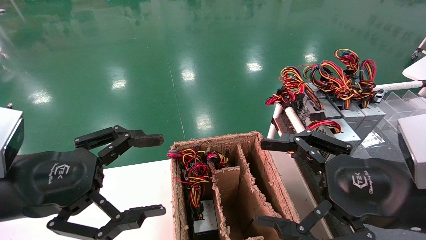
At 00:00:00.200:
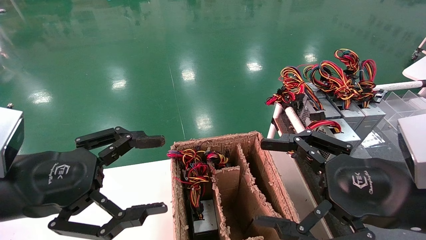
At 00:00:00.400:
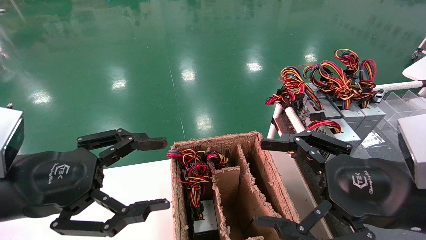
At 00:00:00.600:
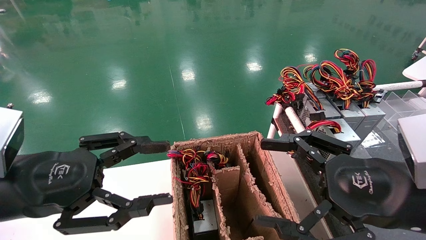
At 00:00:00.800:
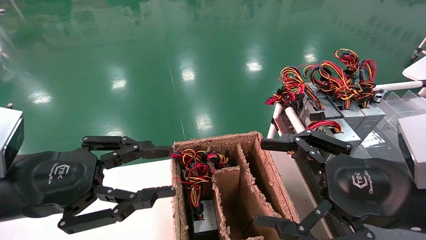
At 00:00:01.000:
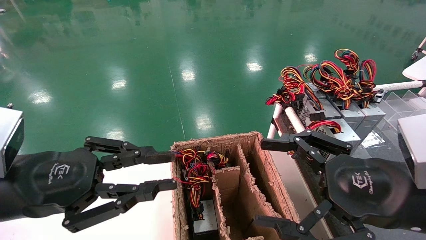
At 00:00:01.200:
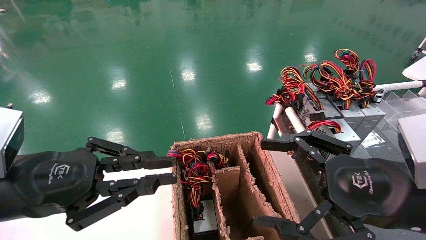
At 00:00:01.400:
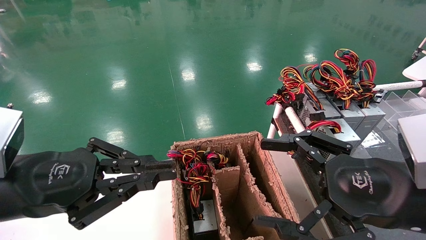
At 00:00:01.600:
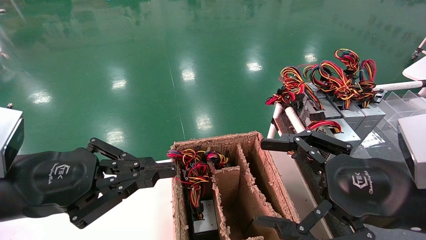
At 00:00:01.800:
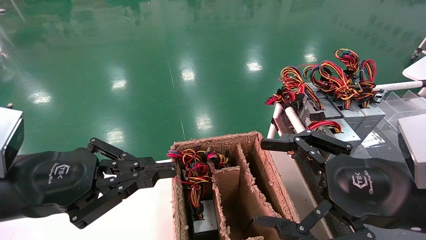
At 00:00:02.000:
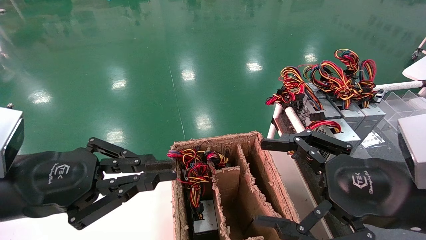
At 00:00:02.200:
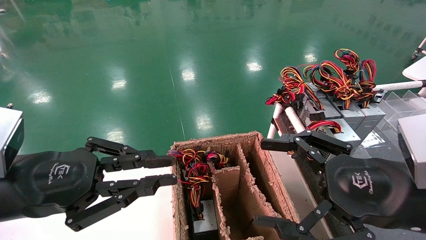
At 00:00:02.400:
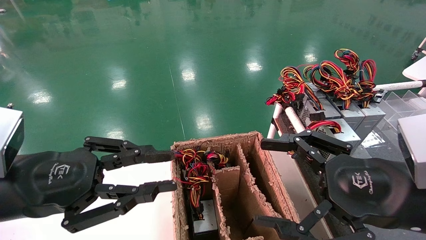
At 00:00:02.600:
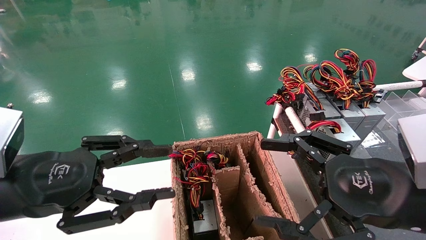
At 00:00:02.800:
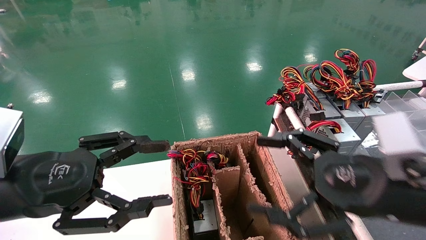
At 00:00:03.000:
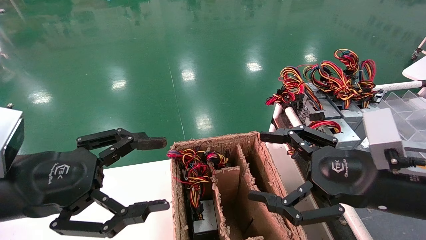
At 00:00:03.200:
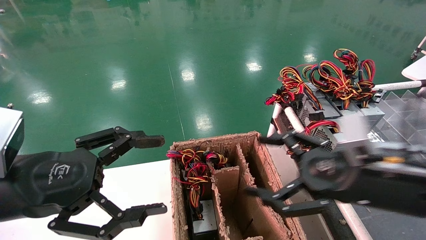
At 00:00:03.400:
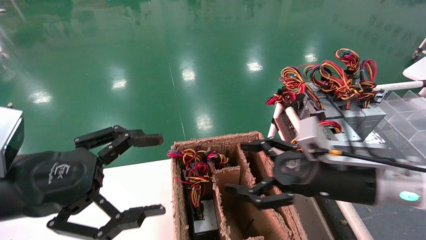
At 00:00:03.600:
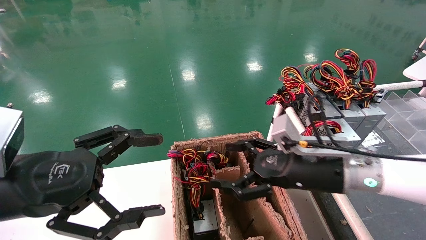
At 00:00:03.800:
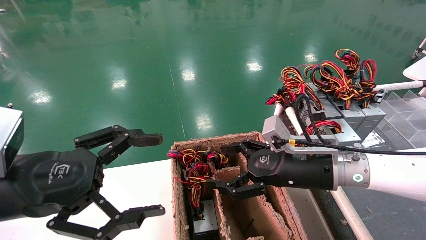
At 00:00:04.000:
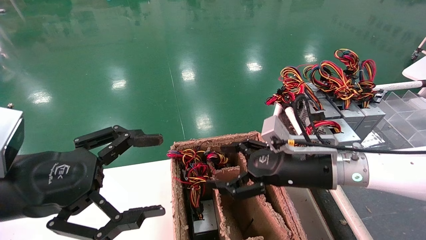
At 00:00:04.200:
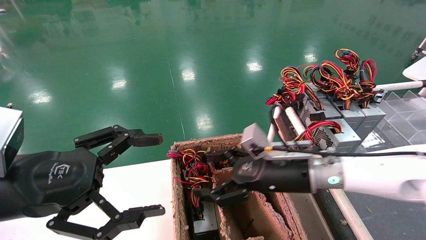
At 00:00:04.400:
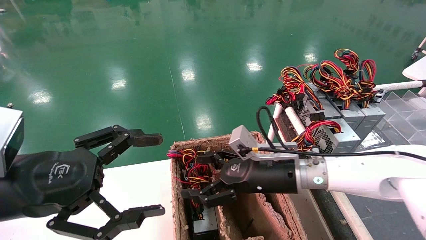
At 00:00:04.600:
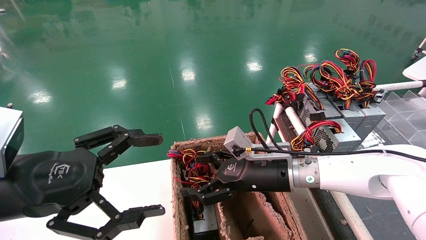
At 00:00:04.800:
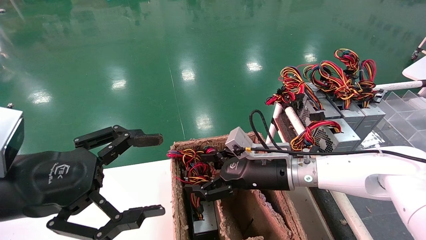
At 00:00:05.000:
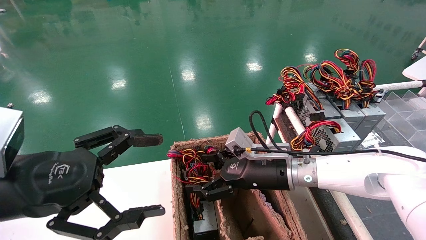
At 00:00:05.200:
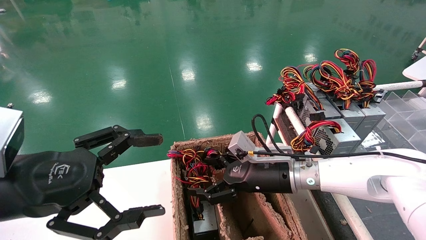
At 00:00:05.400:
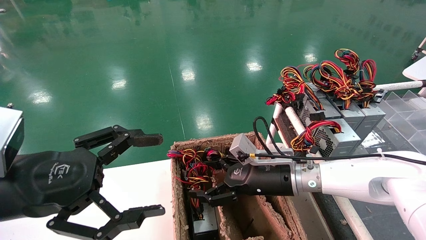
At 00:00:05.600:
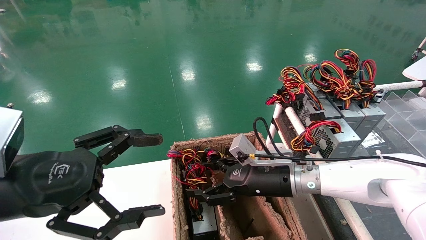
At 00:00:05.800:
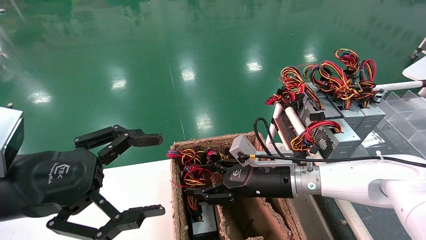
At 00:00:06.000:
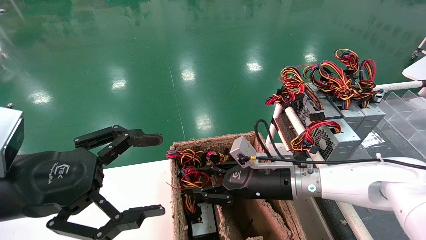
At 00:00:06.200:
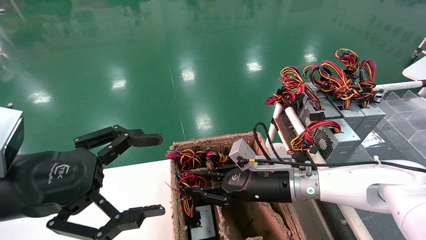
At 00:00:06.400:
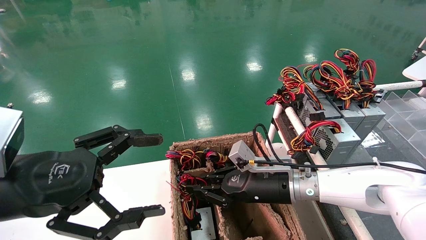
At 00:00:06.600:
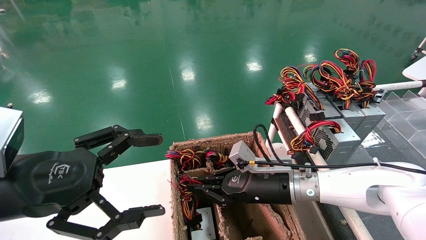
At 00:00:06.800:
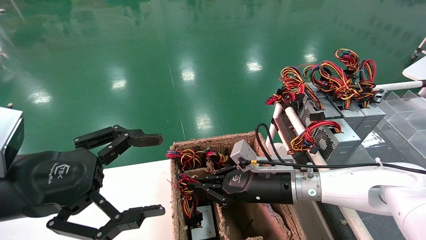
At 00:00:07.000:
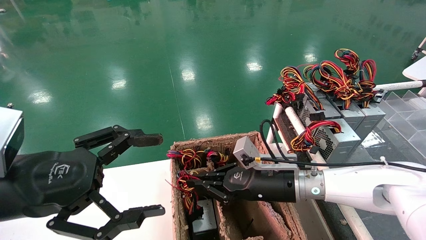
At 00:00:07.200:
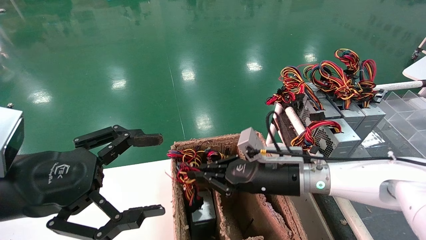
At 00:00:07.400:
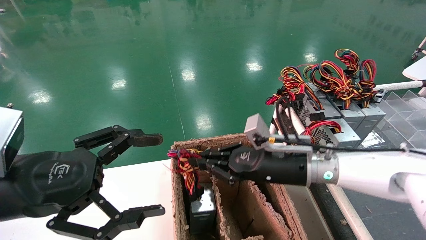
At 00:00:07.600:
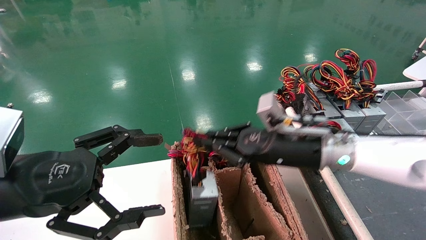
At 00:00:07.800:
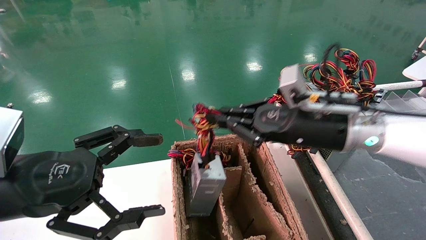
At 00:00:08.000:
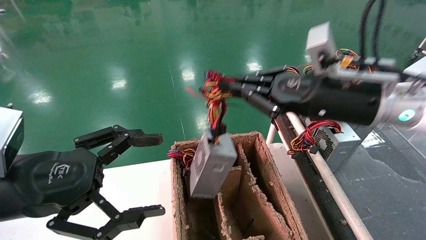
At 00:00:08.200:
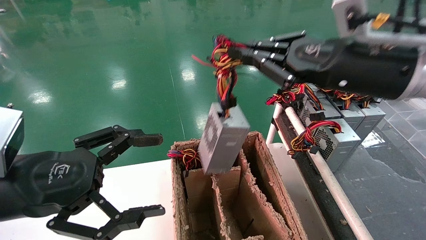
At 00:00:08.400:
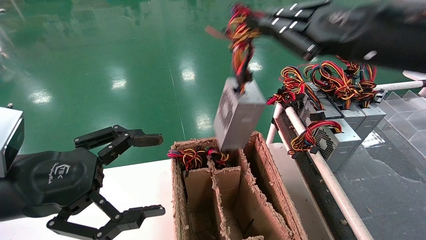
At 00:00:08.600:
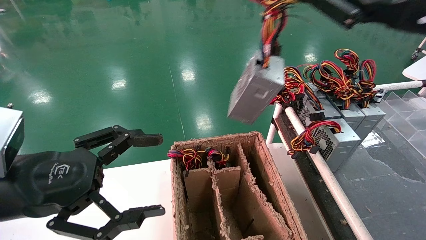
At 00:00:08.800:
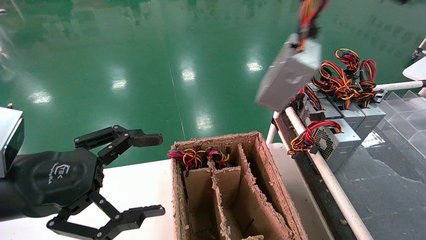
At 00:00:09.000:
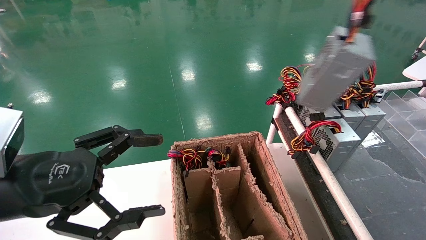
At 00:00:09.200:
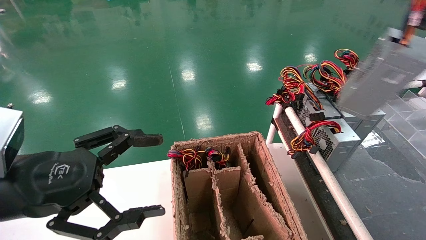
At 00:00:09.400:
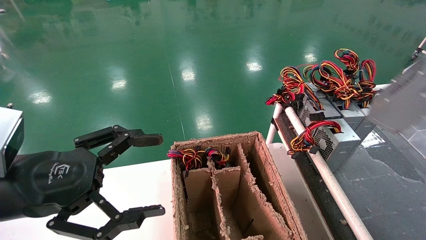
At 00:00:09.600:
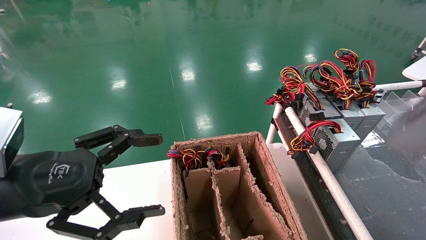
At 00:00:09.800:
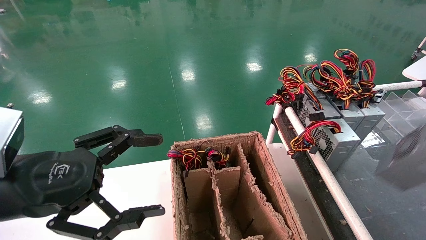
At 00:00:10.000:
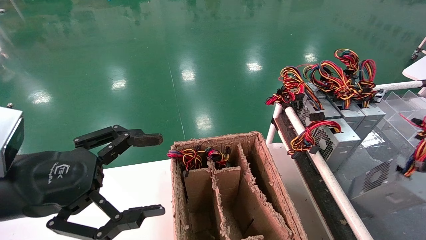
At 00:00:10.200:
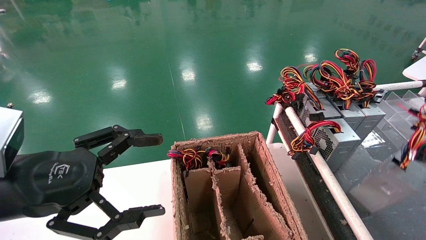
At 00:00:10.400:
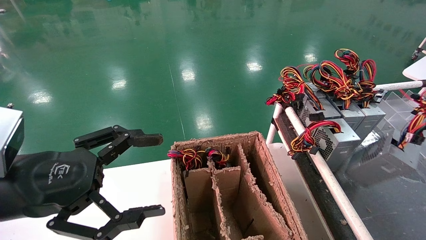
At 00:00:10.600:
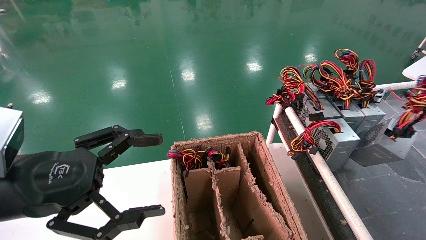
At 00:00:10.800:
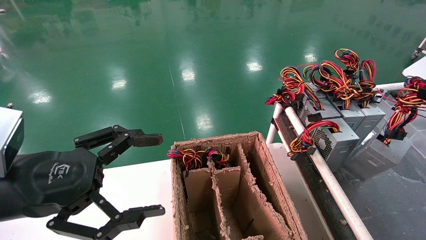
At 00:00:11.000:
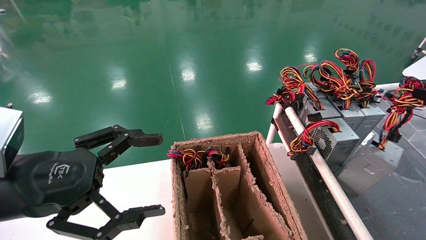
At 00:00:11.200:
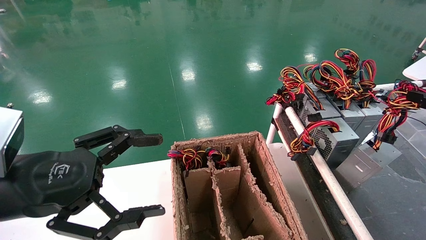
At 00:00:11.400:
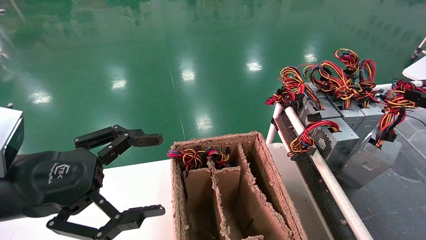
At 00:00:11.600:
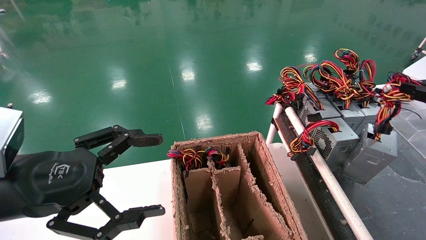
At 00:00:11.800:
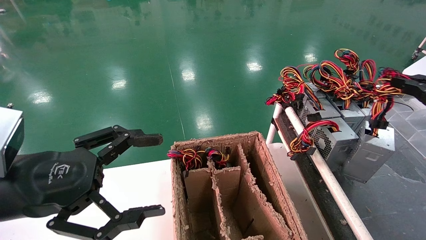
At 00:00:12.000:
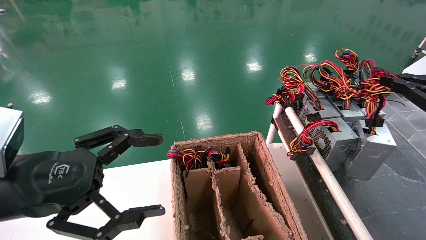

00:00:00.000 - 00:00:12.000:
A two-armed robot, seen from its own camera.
Step, 00:00:01.600 - 00:00:06.400: Grab and lift the power supply from the large box.
00:00:00.000 - 00:00:01.600: The left gripper closes up.
00:00:01.600 - 00:00:03.000: The left gripper opens up.
00:00:03.000 - 00:00:04.400: The right gripper shifts approximately 20 cm forward, to the left and downward.
00:00:04.400 - 00:00:06.000: The right gripper closes its fingers.
00:00:06.000 - 00:00:07.600: The right gripper goes about 10 cm upward, and closes up.
00:00:07.600 - 00:00:09.000: The right gripper shifts some 35 cm upward, to the right and backward.
00:00:09.000 - 00:00:10.400: The right gripper is displaced downward and to the right by approximately 20 cm.
00:00:10.400 - 00:00:12.000: The right gripper is displaced forward by some 10 cm.

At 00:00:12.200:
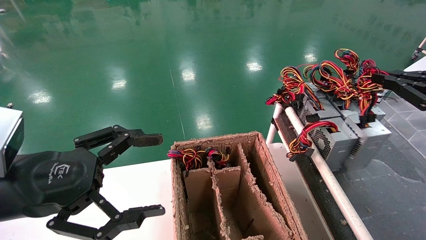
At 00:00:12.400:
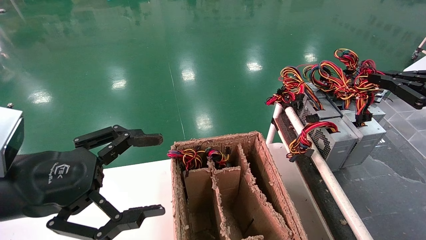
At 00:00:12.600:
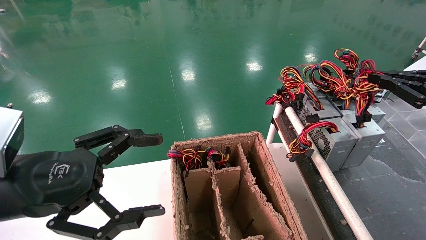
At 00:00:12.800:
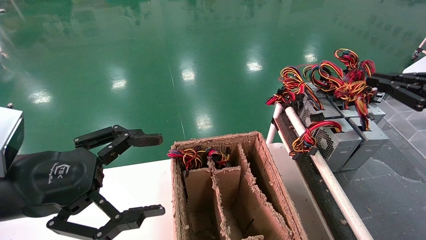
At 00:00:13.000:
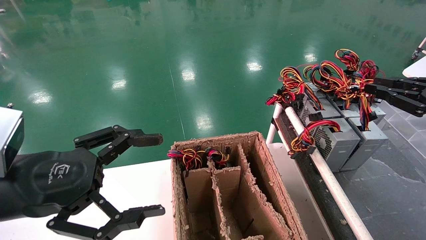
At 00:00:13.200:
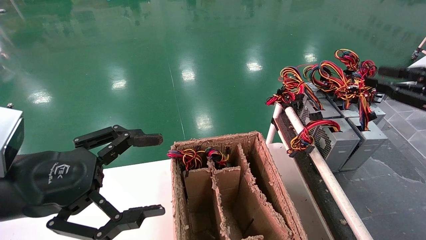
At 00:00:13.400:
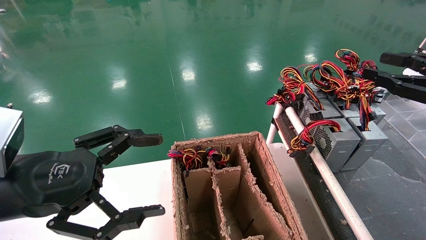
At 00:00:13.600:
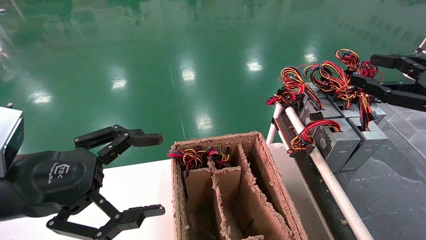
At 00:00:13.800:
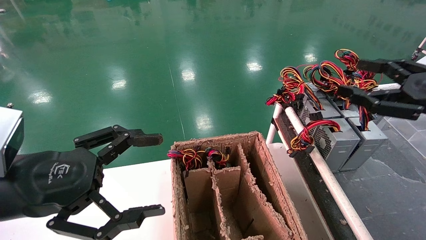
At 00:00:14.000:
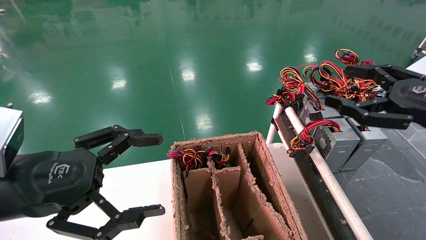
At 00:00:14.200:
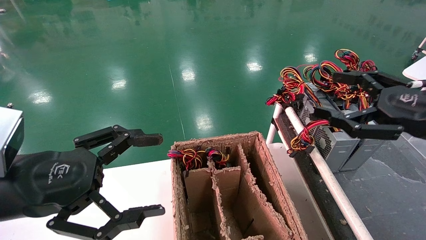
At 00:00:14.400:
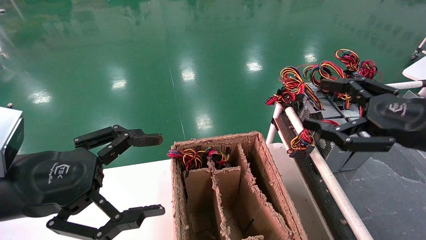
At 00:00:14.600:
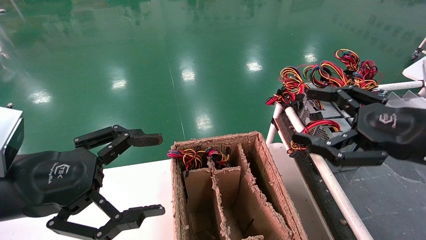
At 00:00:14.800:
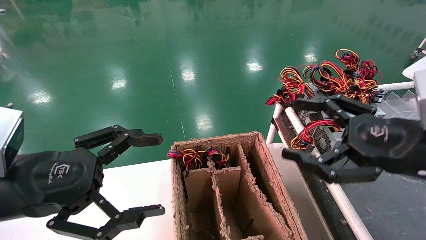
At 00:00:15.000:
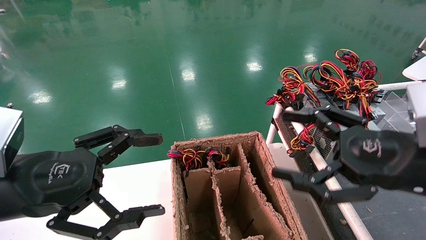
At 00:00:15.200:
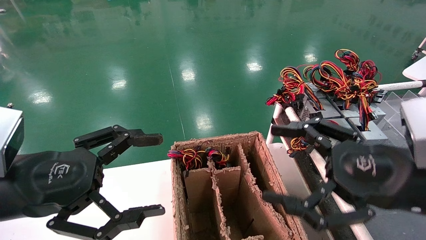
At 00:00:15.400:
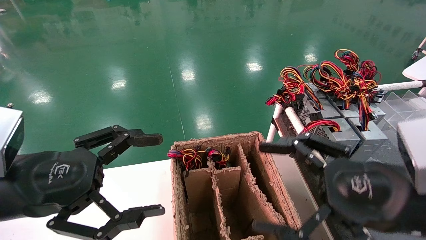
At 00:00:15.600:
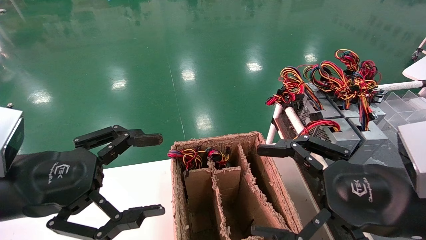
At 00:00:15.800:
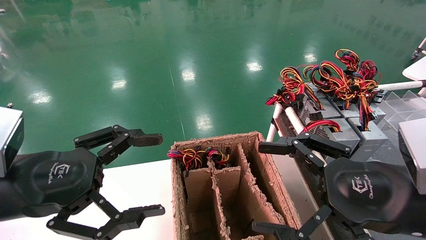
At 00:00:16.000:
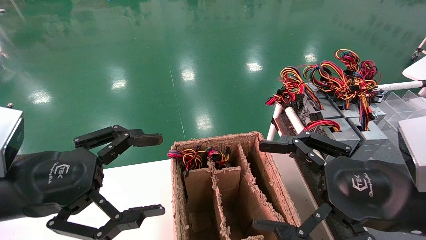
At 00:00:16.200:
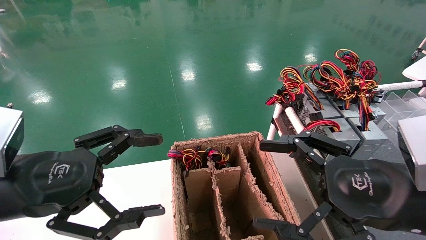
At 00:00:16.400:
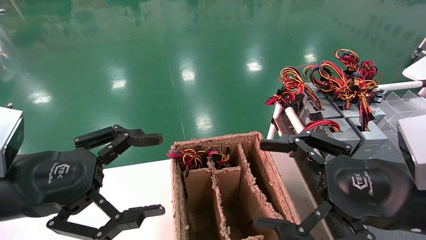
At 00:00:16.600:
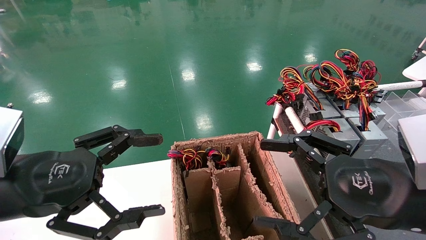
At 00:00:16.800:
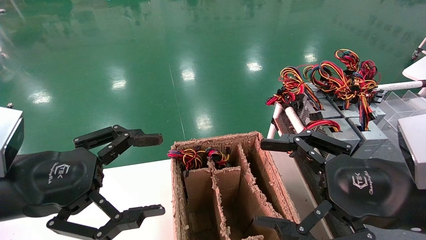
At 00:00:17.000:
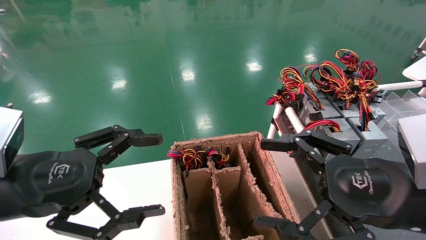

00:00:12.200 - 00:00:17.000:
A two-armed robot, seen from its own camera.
00:00:12.200 - 00:00:13.800: The right gripper moves to the left, approximately 5 cm, and opens up.
00:00:13.800 - 00:00:15.400: The right gripper travels to the left, backward and downward by roughly 15 cm.
00:00:15.400 - 00:00:17.000: Neither gripper changes place.
